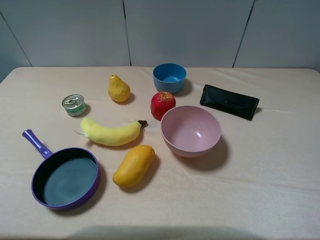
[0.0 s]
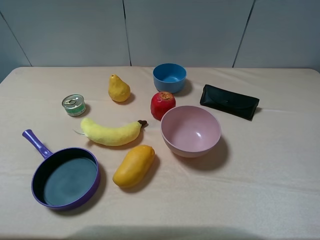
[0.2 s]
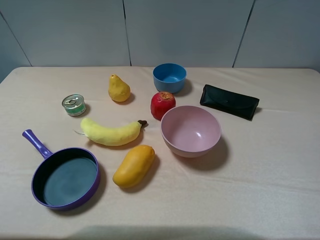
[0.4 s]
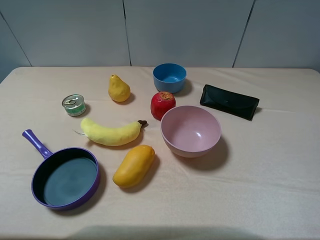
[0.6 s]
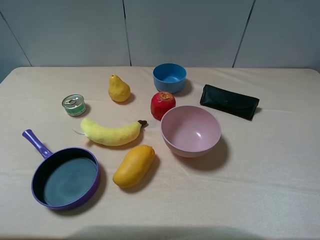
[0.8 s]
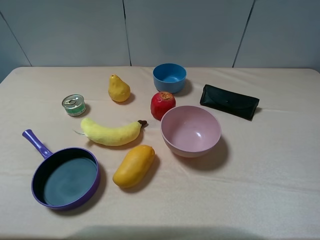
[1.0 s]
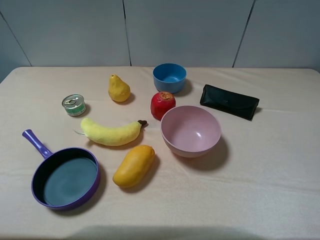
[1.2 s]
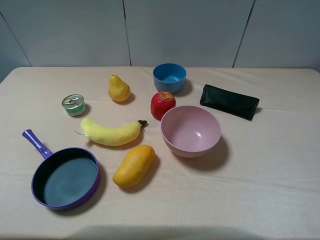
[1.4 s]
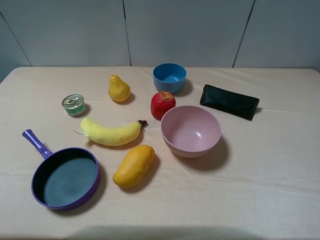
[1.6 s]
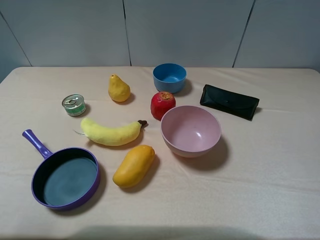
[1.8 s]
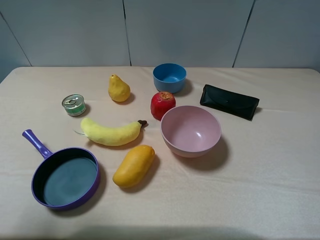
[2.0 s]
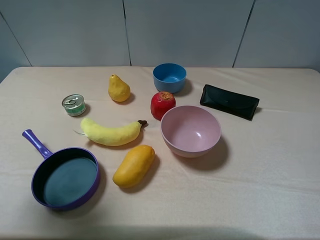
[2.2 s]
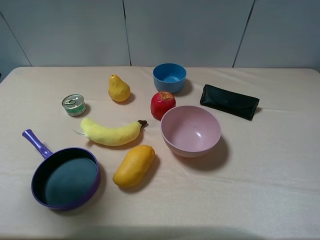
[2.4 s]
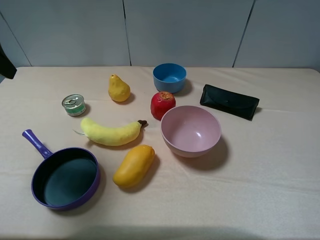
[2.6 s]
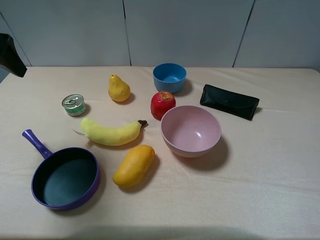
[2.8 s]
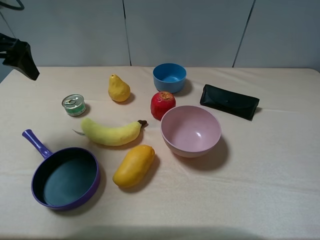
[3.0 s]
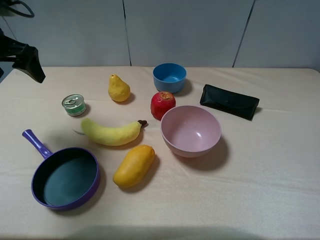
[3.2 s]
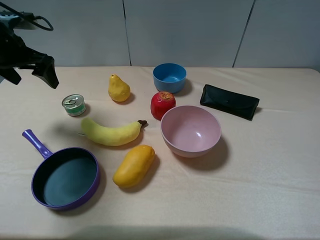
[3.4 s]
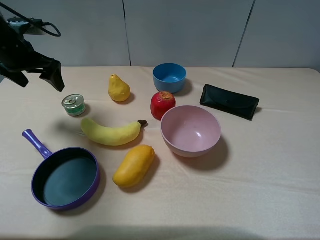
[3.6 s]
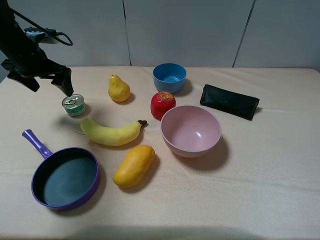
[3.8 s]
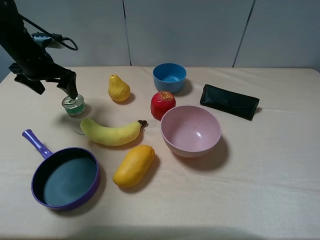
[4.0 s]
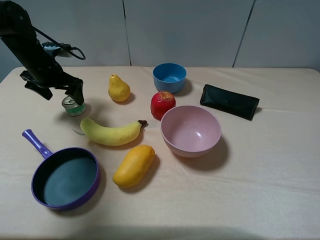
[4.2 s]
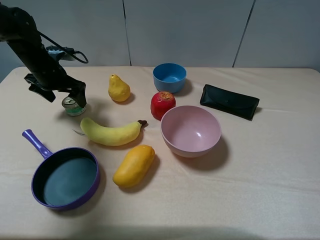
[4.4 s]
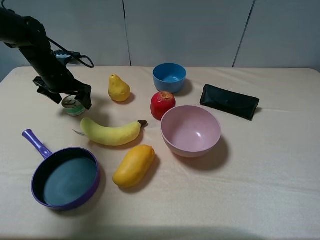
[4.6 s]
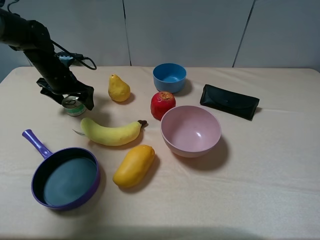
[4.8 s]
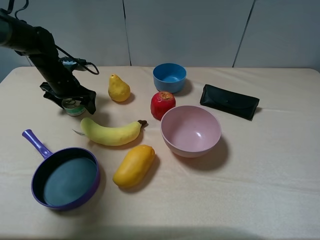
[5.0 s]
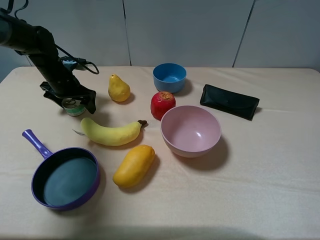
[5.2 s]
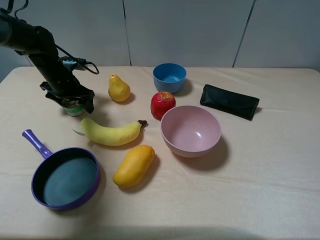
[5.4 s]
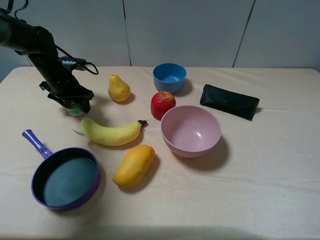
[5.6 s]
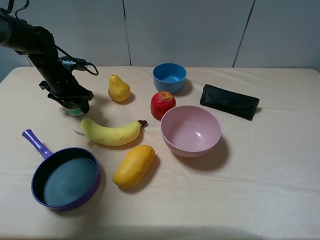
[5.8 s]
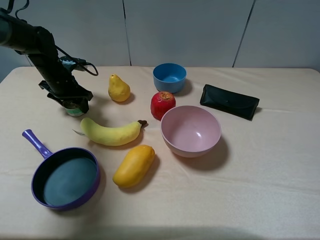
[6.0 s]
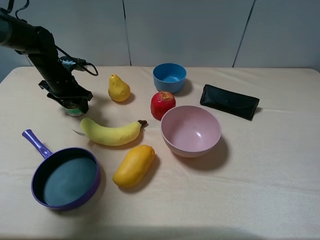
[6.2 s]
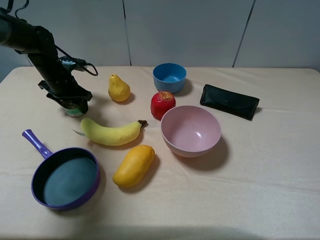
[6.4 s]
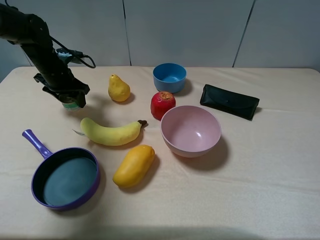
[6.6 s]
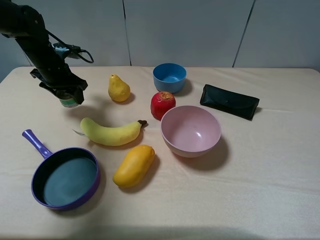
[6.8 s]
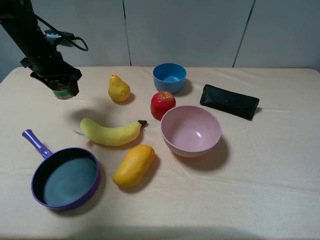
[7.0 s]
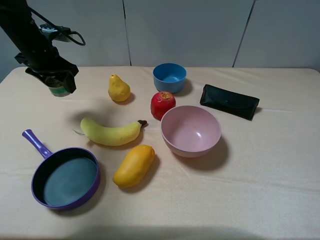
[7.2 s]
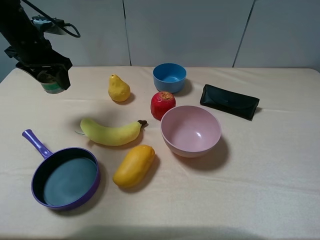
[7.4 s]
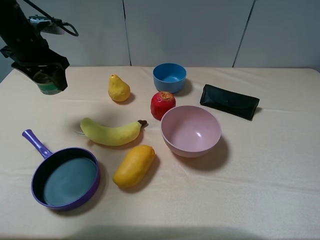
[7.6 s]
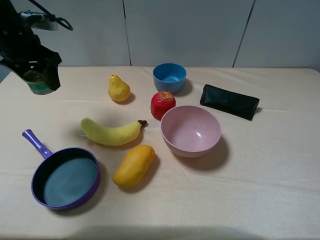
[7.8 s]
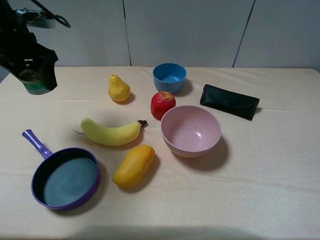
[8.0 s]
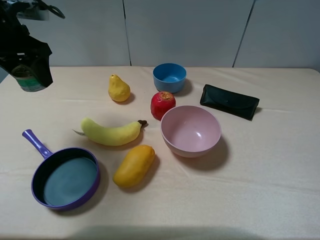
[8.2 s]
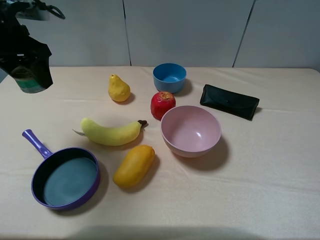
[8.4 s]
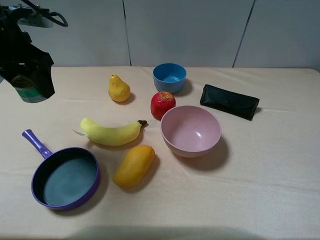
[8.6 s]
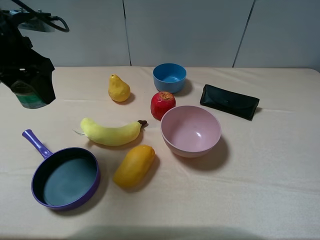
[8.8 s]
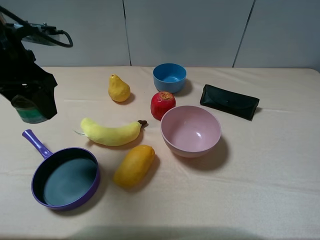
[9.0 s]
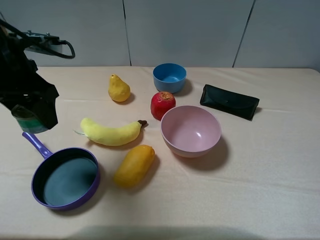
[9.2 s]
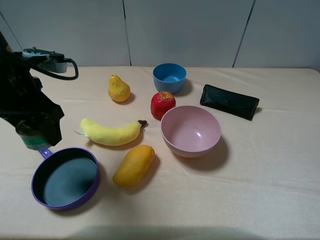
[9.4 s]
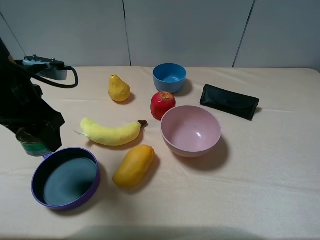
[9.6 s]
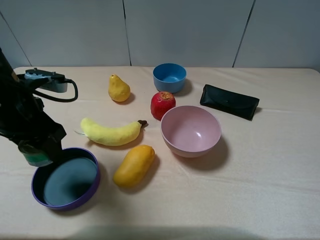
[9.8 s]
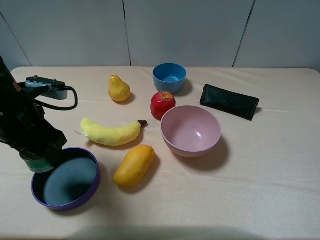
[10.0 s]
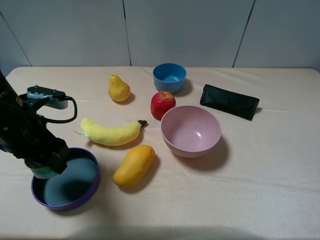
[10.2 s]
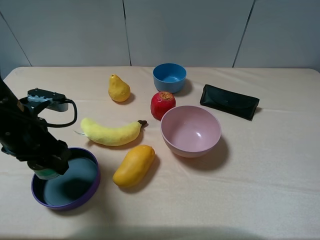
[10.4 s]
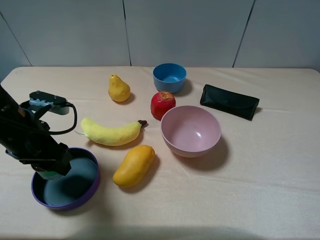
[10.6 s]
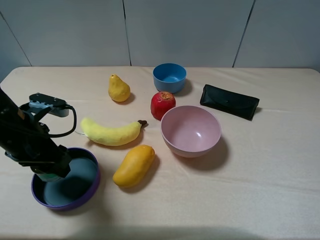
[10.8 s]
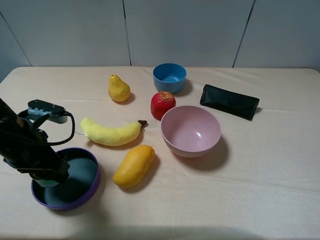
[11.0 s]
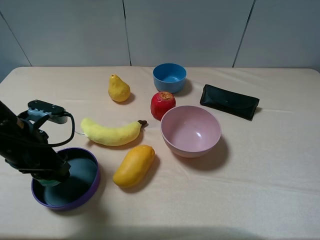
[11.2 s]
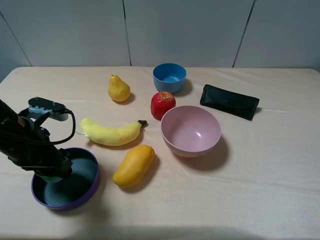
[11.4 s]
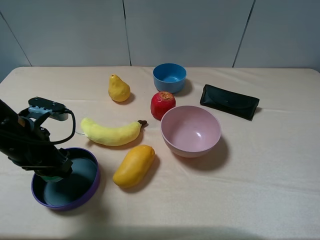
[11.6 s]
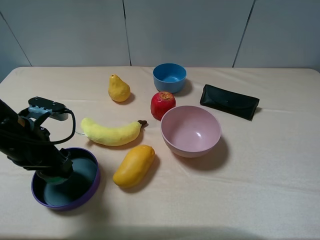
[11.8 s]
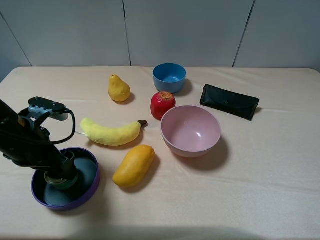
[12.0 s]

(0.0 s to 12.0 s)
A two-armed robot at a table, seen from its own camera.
Task of the whole recording: pick up an item with a gripper and place it in a random container on the table.
Step, 0.0 s - 5.6 s: Grasp the tin with the left gripper.
1.6 s - 3.0 s: The left gripper heads forward, covering some 30 cm.
3.0 s - 4.4 s: The left gripper shifts roughly 15 cm downward and forward.
4.4 s - 6.0 s: The left gripper closes its fingers.
6.0 s - 7.6 s: The left gripper shifts roughly 15 cm upward.
7.6 s - 9.0 s: The left gripper travels backward by roughly 10 cm.
9.0 s - 10.4 s: The left gripper moves downward and backward, some 10 cm.
10.4 s - 12.0 s: The left gripper opens its fingers.

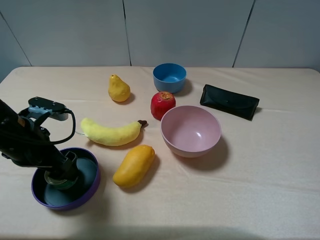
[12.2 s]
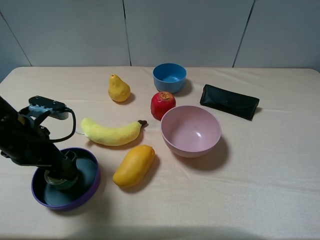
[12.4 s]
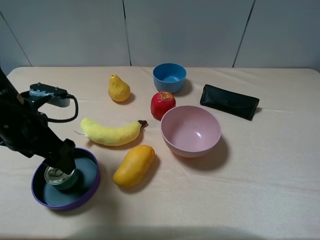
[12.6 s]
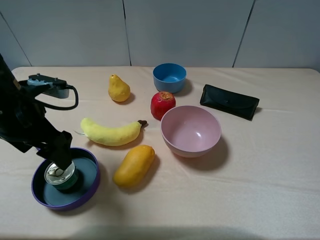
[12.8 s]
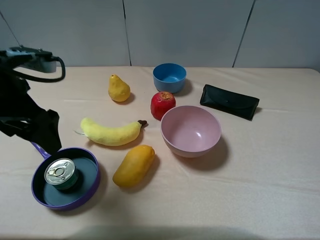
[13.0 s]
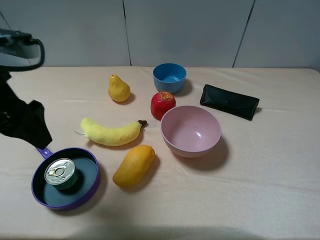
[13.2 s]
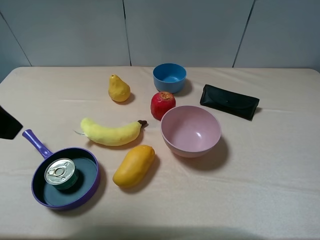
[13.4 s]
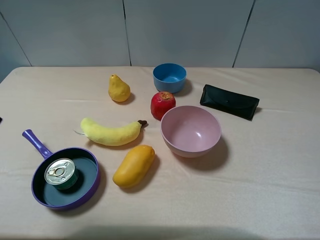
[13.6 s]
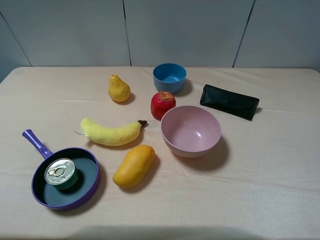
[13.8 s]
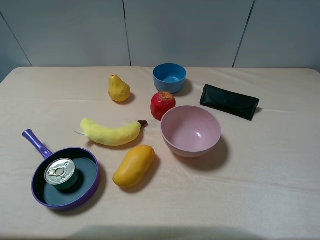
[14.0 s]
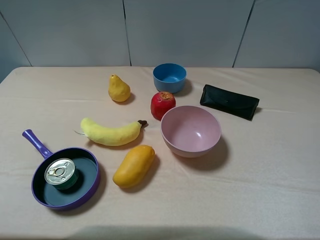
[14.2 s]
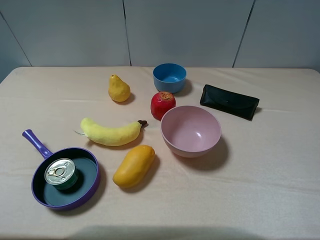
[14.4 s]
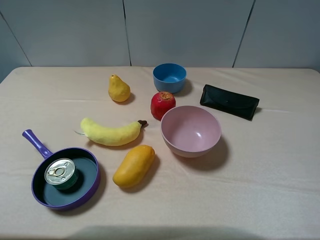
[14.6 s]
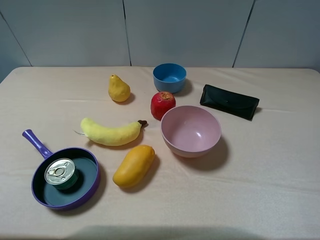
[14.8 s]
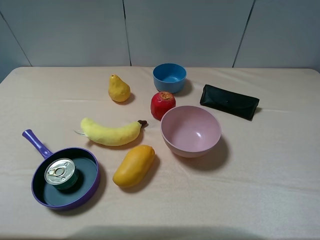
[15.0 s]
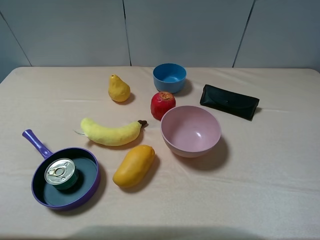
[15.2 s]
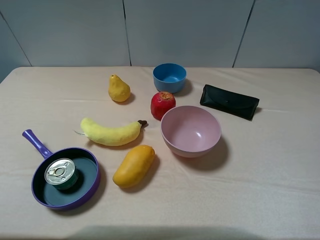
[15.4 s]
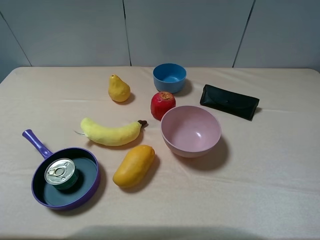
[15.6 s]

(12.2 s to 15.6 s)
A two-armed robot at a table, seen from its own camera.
Task of the whole recording: pick up an item with a gripper and place it in a random container on the table.
12.2 s - 13.8 s: The left gripper is displaced upward and backward by about 25 cm.

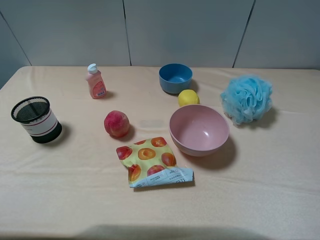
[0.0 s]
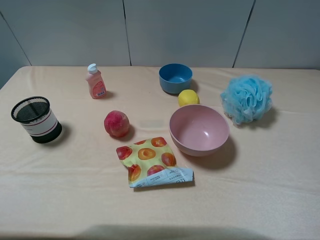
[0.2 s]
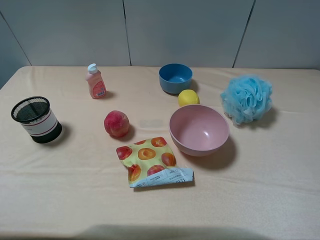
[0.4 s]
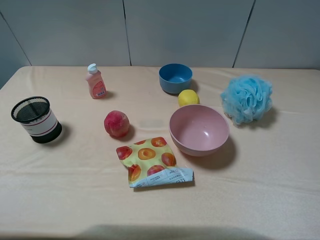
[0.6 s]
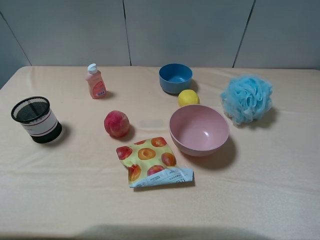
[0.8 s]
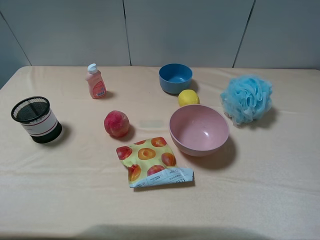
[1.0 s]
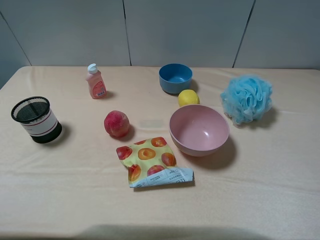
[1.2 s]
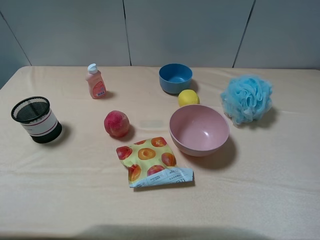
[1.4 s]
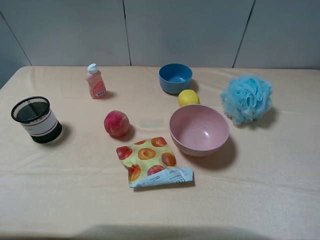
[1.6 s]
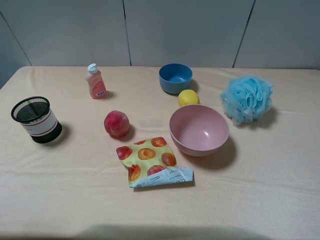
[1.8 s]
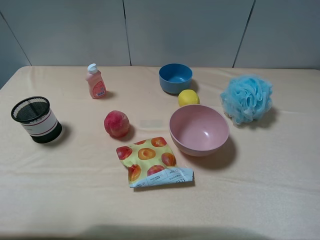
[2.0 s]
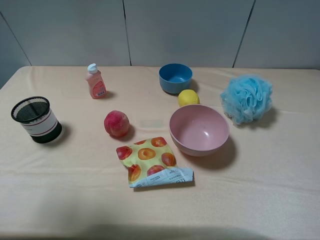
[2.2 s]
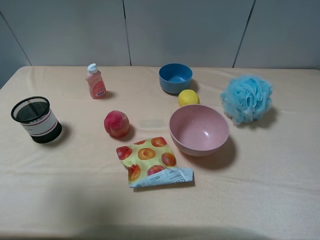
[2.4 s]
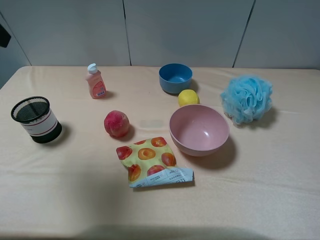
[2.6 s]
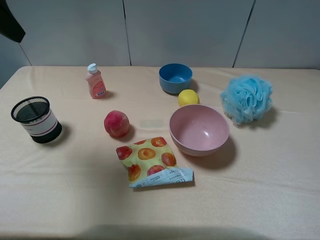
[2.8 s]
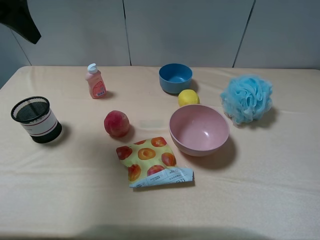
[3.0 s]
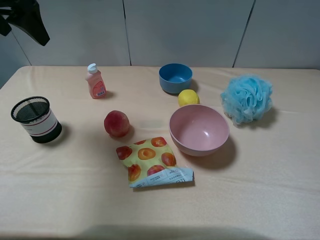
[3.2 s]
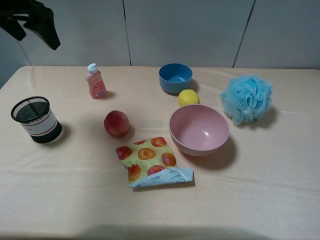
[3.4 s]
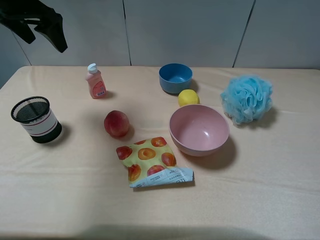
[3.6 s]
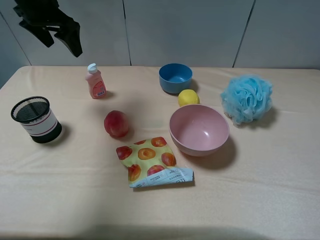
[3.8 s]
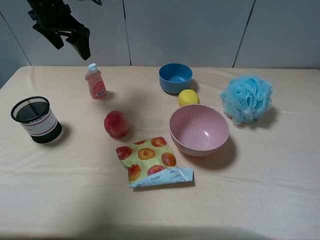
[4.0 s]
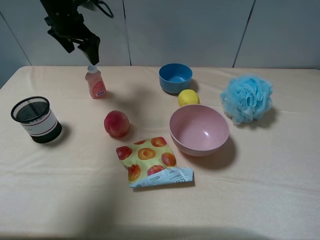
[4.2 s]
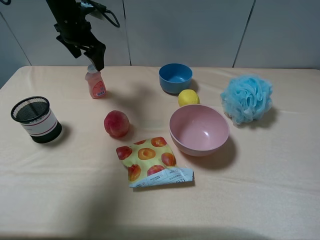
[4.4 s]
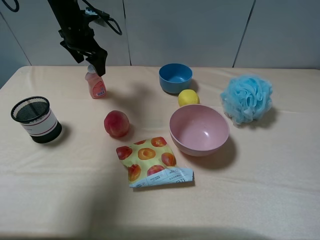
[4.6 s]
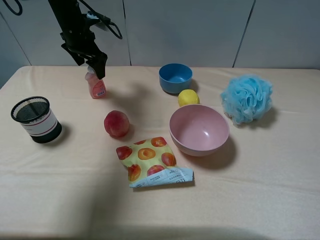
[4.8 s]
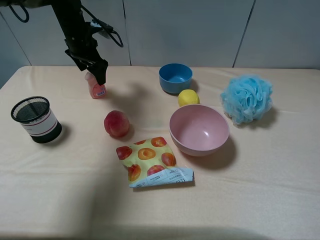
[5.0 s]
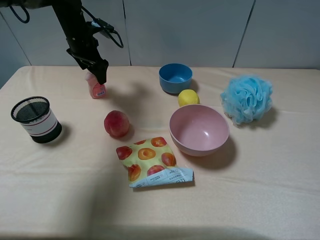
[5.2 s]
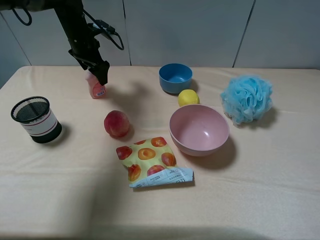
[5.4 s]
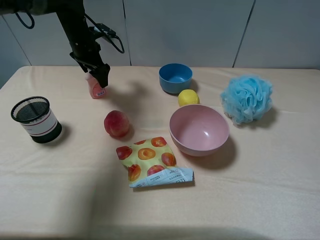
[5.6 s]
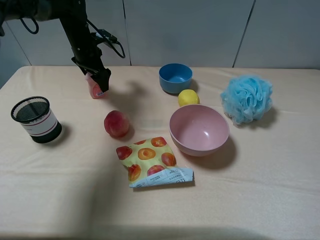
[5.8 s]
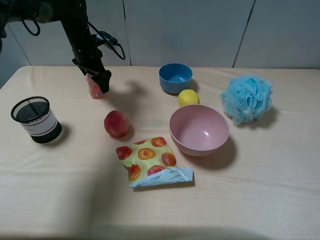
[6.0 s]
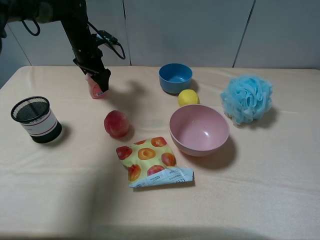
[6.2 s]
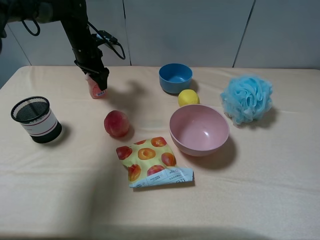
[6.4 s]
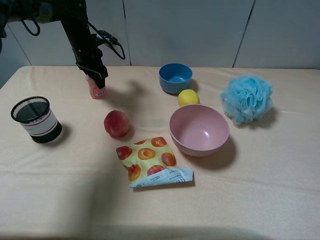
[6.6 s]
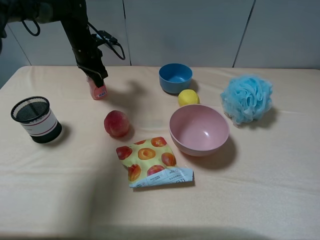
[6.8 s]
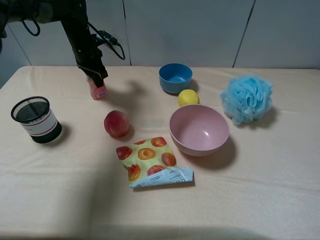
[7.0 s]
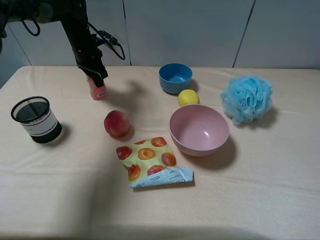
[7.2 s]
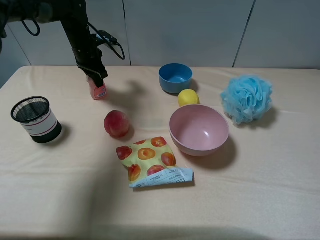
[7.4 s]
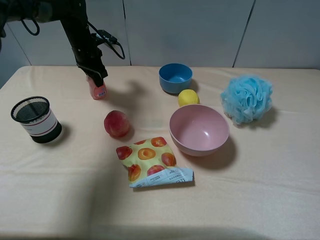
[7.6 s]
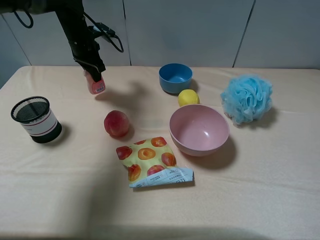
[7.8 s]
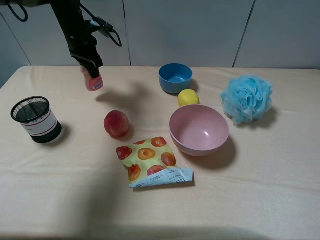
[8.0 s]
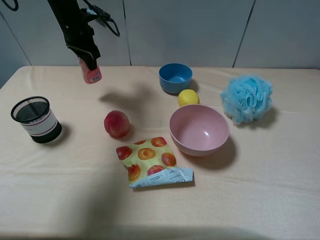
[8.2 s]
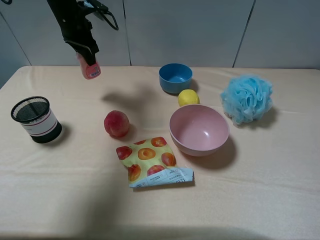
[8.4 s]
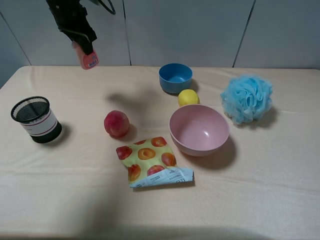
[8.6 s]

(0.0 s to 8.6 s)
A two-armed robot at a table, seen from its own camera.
Task of the whole recording: pick up an item with a gripper and place it in a random container on the table.
Step, 0.0 s - 7.0 s: Grasp the pink laundry detergent with the left gripper.
1.4 s - 2.8 s: The left gripper heads forward, covering approximately 25 cm.
2.8 s - 4.4 s: The left gripper is displaced forward and downward by roughly 25 cm.
4.4 s - 5.8 s: The left gripper travels downward by roughly 10 cm.
5.8 s - 7.2 s: The left gripper closes.
7.2 s - 8.6 s: The left gripper shifts about 10 cm upward.
